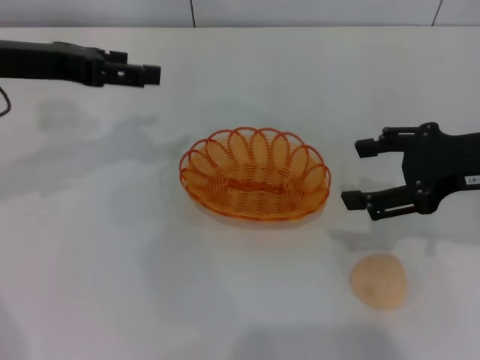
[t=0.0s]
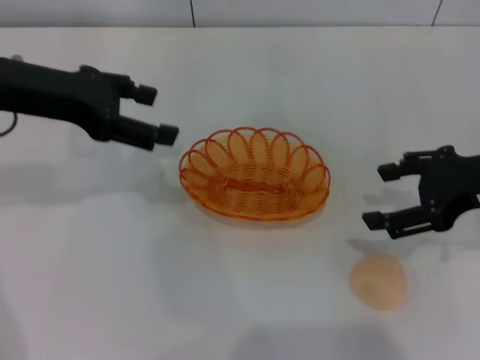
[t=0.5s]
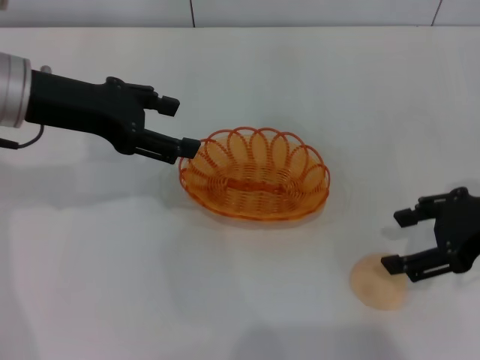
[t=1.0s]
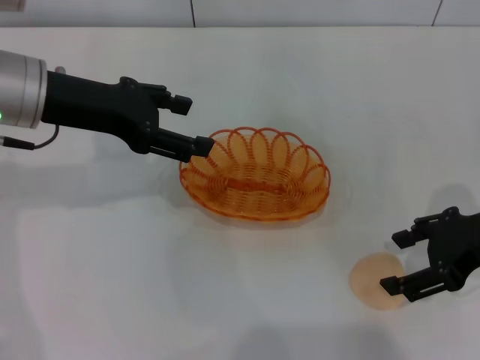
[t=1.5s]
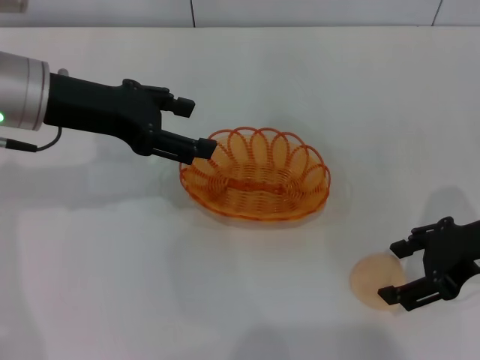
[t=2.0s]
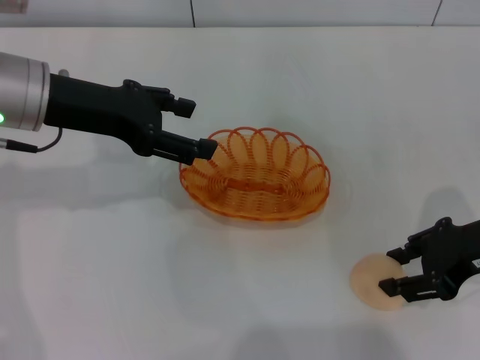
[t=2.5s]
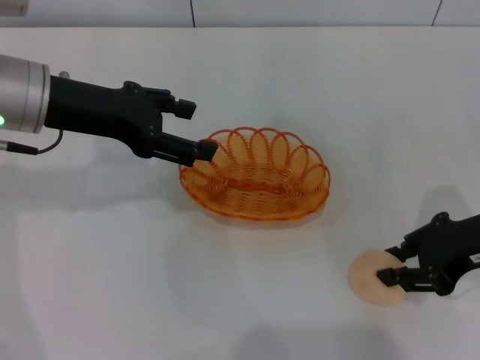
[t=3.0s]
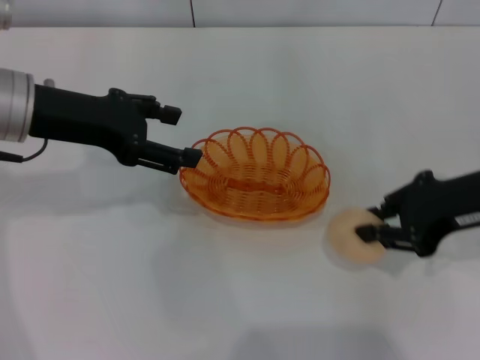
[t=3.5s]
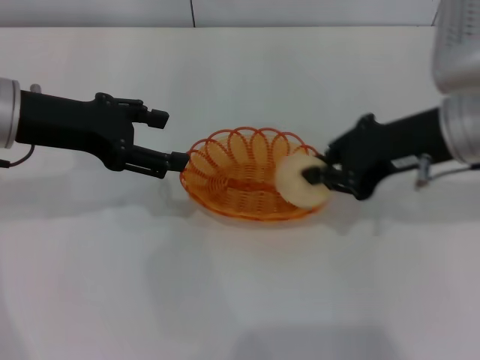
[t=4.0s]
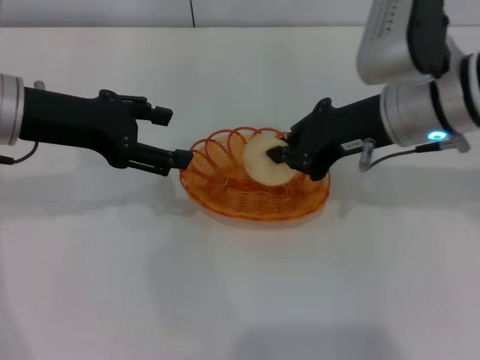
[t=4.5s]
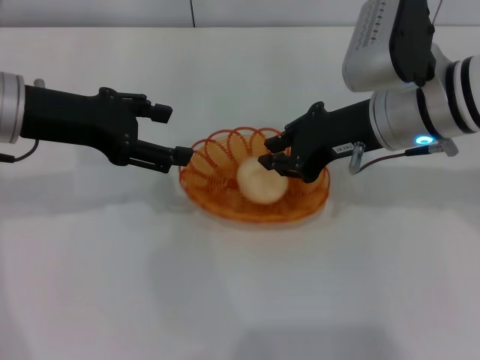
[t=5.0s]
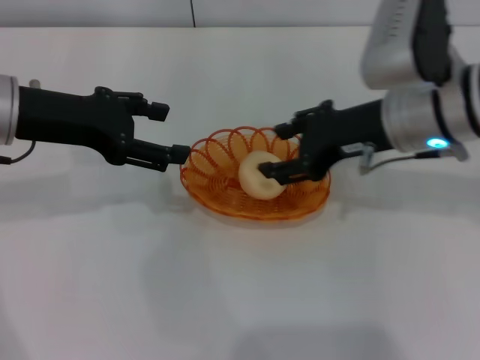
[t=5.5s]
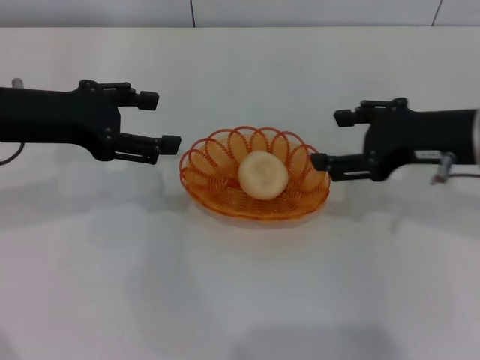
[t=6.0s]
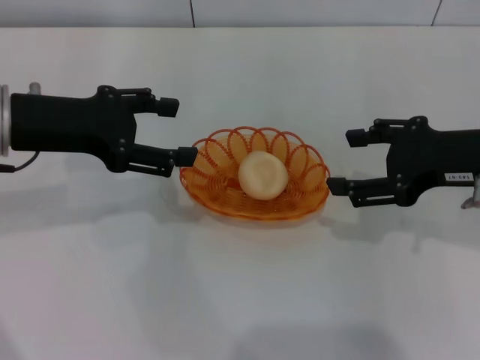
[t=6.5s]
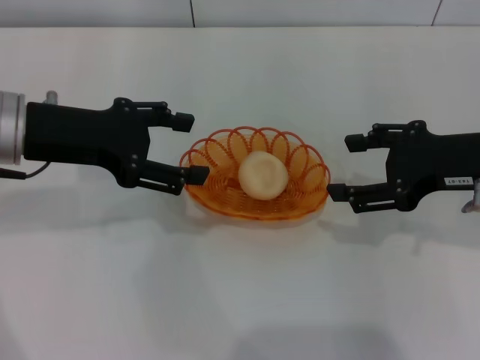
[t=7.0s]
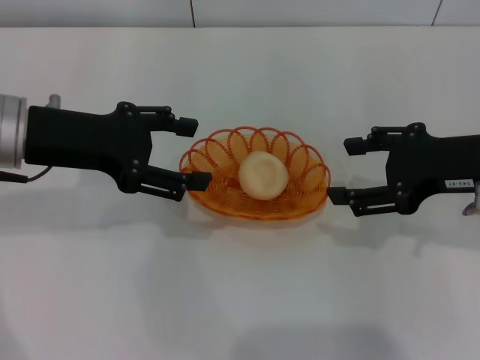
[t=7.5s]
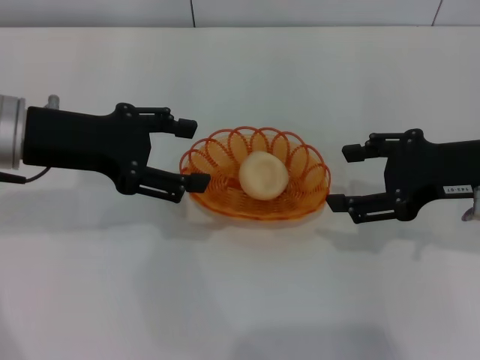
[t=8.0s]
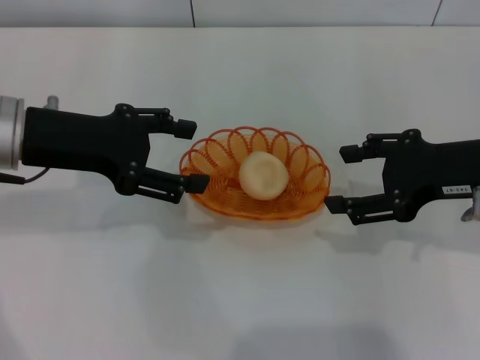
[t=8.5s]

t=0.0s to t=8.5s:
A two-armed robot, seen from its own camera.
Step, t=0.5s to t=3.5s: Pick up the egg yolk pastry with the right gripper.
Step, t=4.0s to t=7.0s: Place the egg yolk pastry into the basket with the right gripper.
t=0.0s to t=2.0s: The left gripper moves about 5 cm.
t=2.0s to t=4.0s: The right gripper is displaced to the left and upward by about 10 cm, and closes its fingers.
t=4.0s to t=6.5s: The right gripper travels to the right by roughly 5 cm, and opens up.
t=6.5s to t=8.5s: The grippers stay close to where they were, moving slightly.
